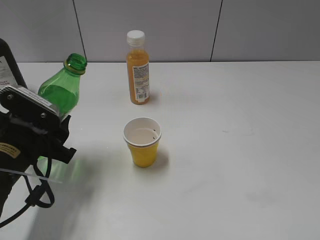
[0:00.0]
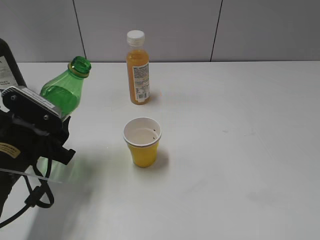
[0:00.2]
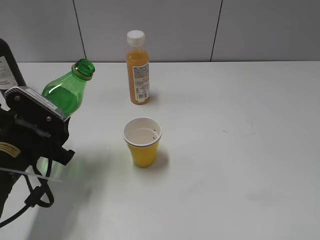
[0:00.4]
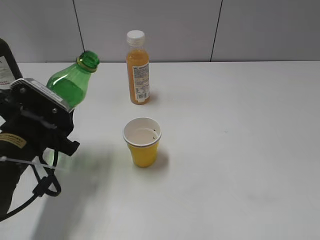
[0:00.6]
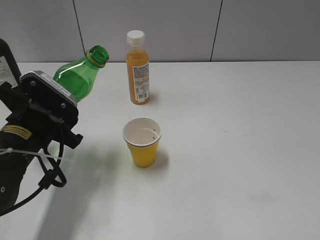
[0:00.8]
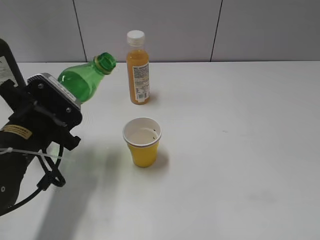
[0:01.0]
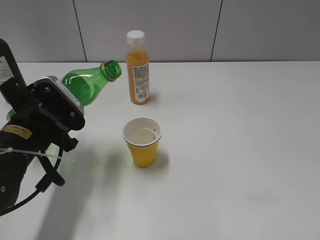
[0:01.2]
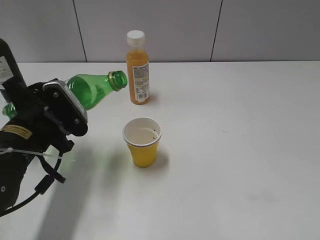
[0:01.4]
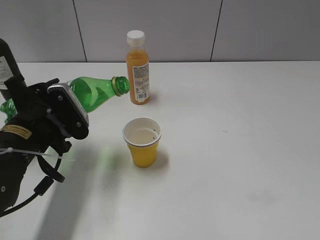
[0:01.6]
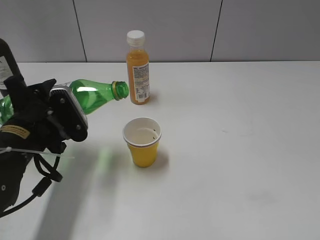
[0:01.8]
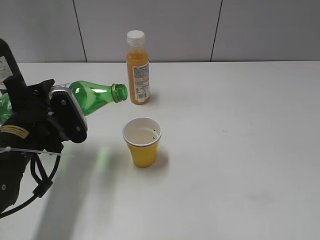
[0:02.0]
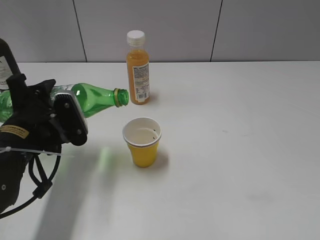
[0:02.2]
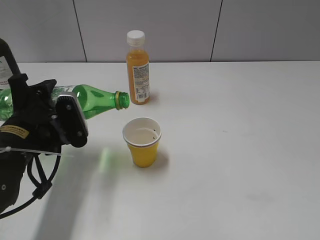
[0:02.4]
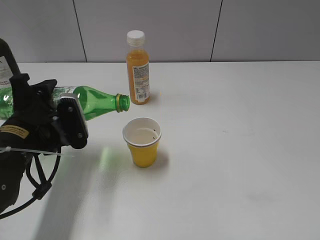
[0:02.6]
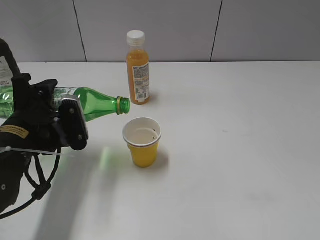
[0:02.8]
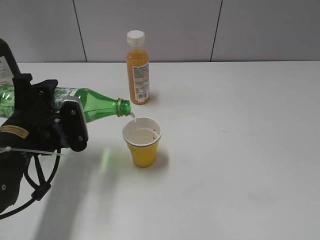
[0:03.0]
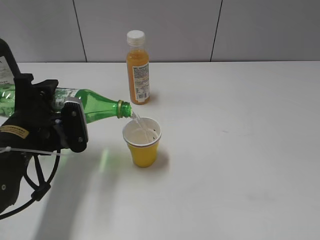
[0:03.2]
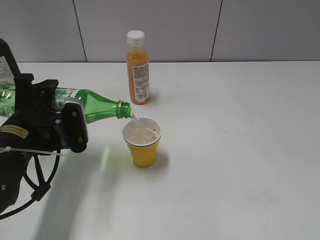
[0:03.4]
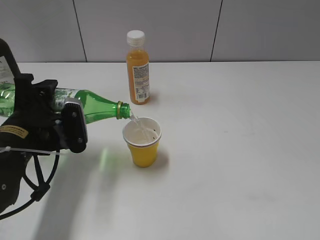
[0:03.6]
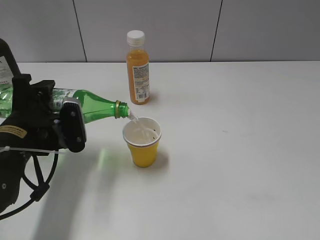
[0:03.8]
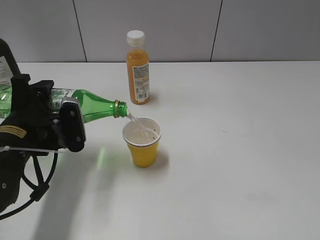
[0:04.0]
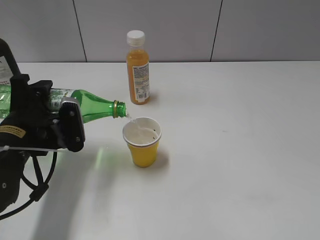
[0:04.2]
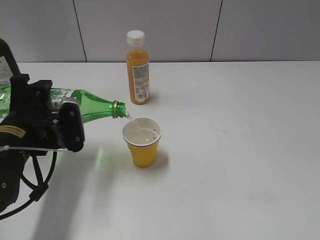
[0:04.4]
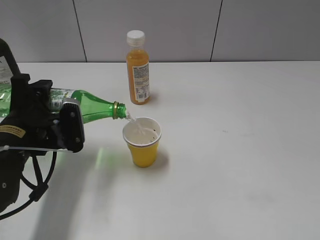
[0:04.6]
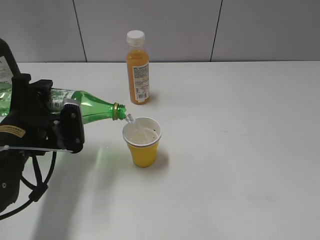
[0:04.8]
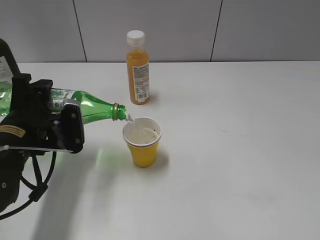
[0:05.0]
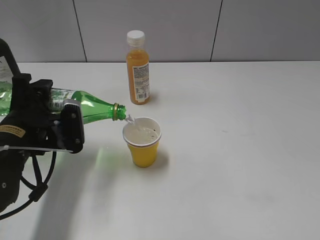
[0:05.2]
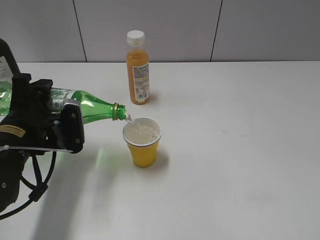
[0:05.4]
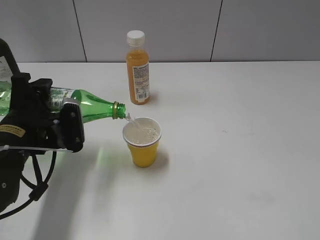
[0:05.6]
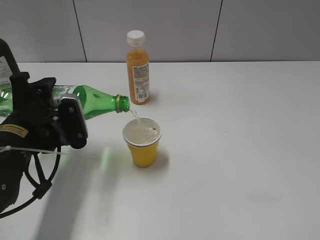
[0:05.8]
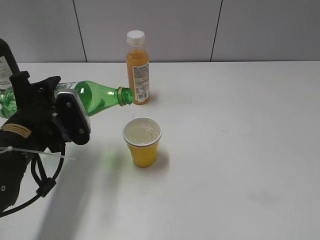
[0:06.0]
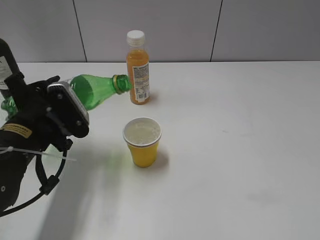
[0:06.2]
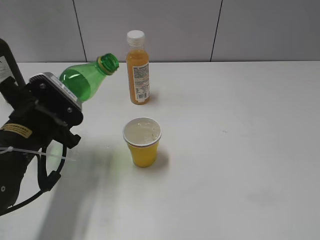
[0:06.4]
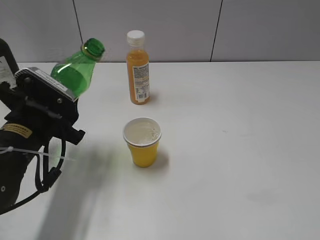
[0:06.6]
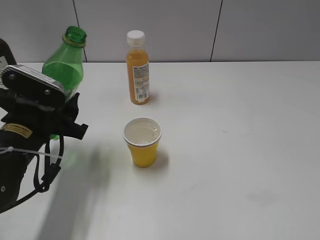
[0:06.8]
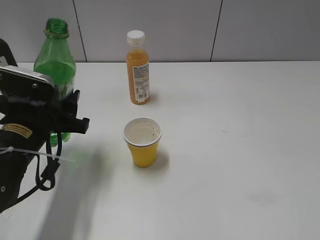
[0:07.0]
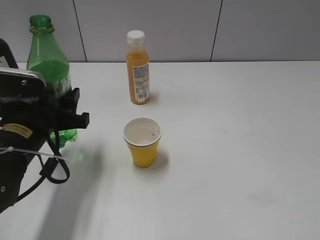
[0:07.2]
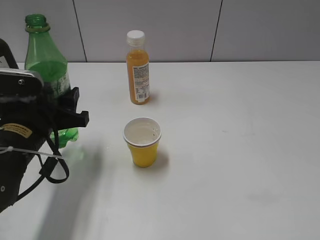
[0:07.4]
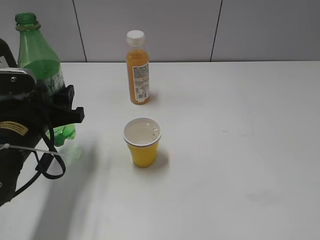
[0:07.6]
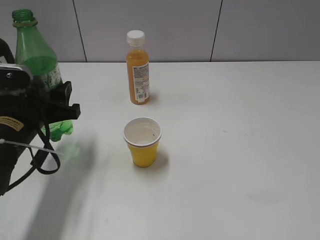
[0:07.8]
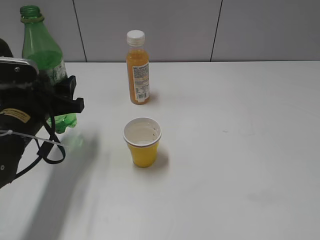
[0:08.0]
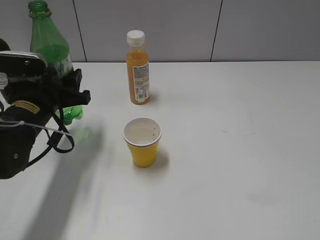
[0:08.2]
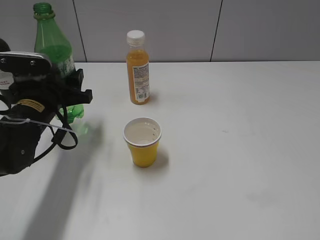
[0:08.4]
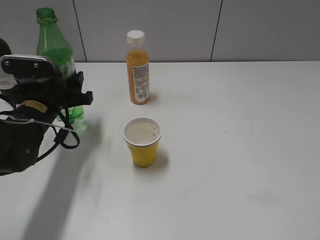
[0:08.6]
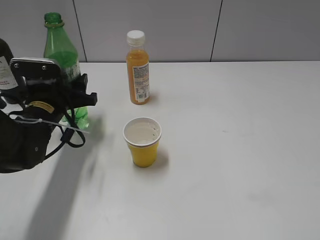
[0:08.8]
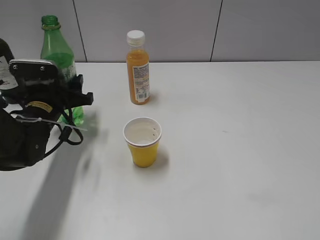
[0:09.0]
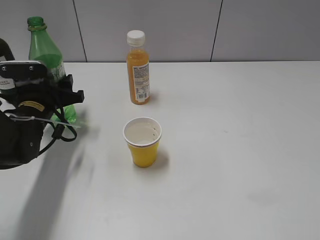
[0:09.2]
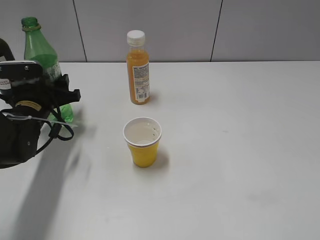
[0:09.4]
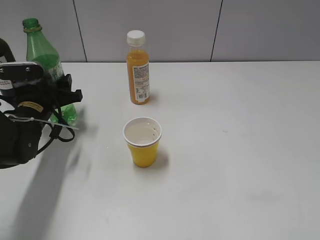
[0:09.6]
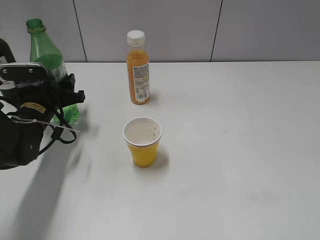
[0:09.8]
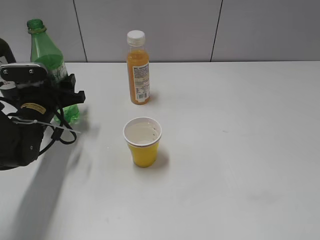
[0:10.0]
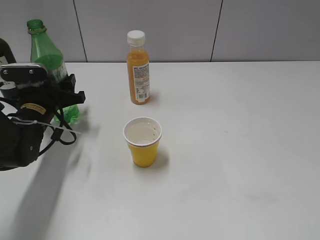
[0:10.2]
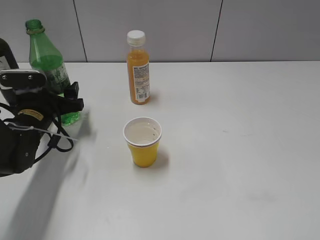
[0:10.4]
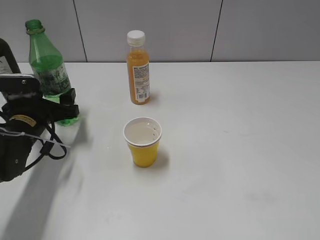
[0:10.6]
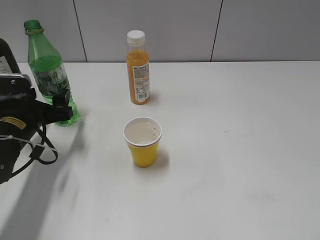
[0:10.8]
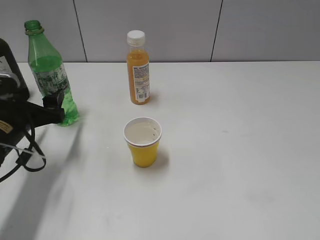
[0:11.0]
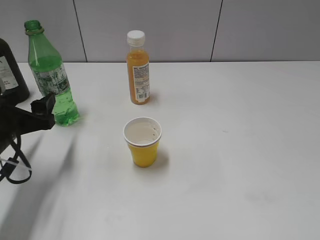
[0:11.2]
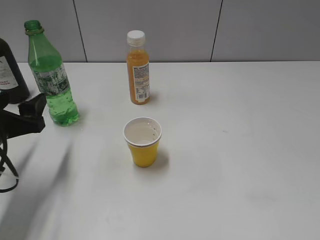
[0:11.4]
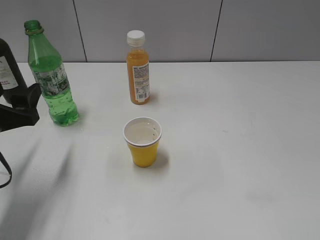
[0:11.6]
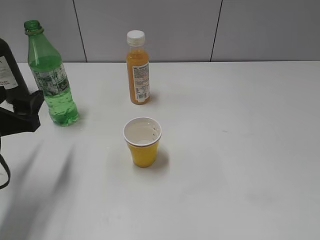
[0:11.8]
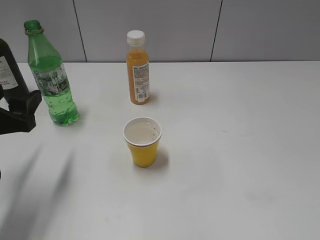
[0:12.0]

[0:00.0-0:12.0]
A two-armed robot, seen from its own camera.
Step, 0:00.0 to 0:06.0: Pour the sprite from bottle to cup with left gripper.
Step, 0:06.2 to 0:10.8: Place the sprite bottle on the table with left gripper.
0:01.6 to 0:03.0: The grippers move only a little.
0:03.0 to 0:04.4: The two grippers keep their place.
0:04.4 to 0:06.0: The grippers stay close to where they were, moving slightly.
0:07.6 to 0:09.0: The left gripper travels forward by about 10 cm.
0:09.0 to 0:10.4: The left gripper opens.
0:10.4 to 0:12.0: The left gripper goes about 15 cm backward and upward.

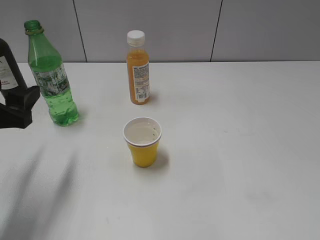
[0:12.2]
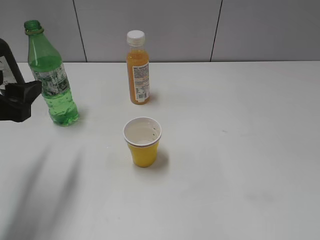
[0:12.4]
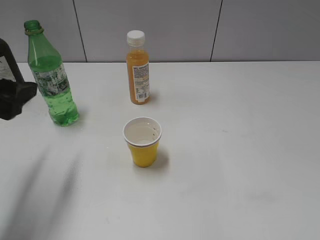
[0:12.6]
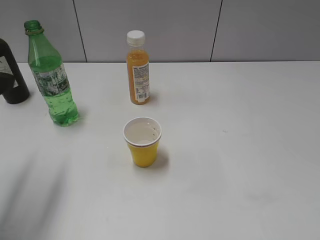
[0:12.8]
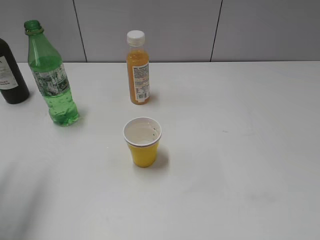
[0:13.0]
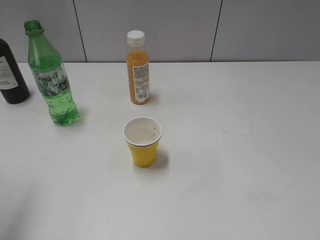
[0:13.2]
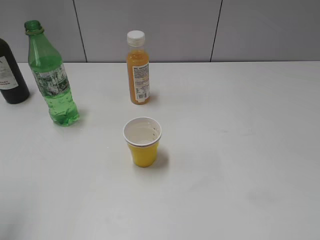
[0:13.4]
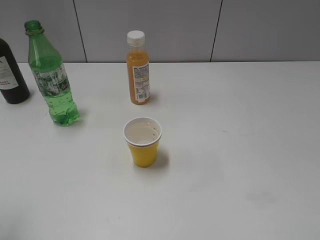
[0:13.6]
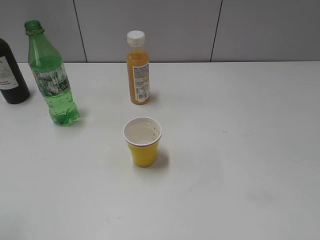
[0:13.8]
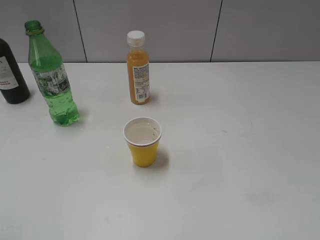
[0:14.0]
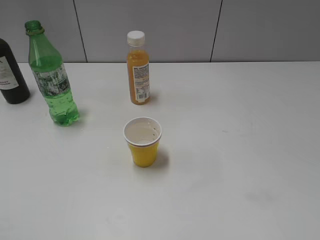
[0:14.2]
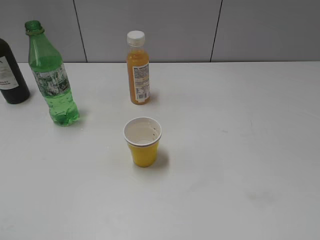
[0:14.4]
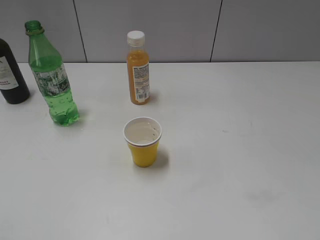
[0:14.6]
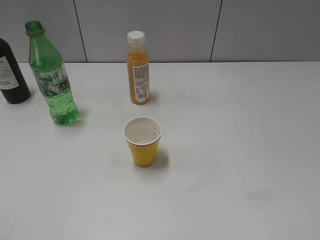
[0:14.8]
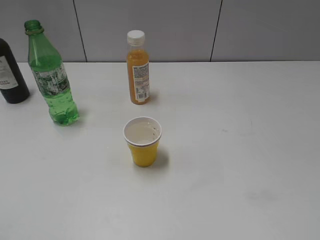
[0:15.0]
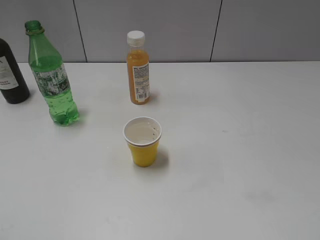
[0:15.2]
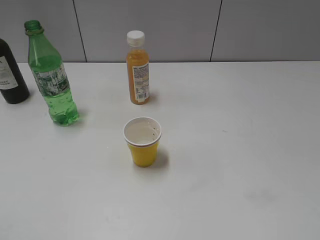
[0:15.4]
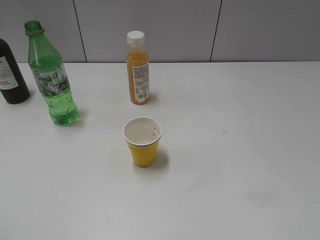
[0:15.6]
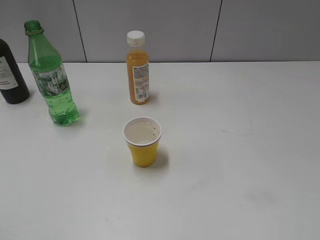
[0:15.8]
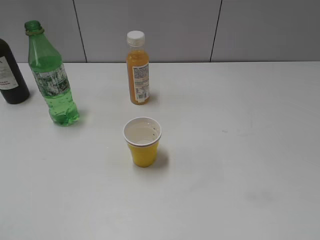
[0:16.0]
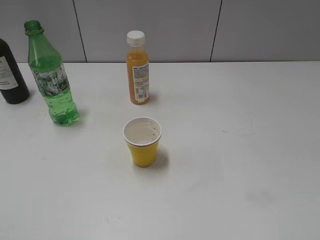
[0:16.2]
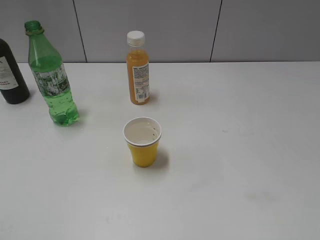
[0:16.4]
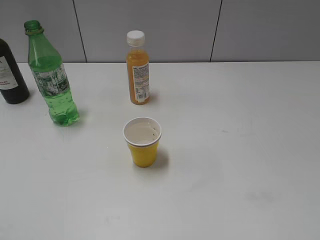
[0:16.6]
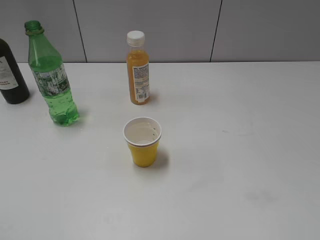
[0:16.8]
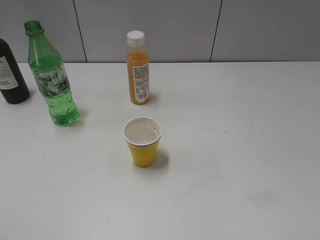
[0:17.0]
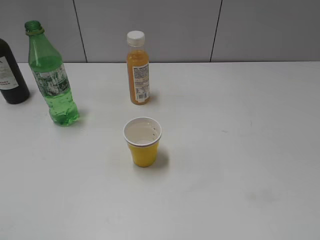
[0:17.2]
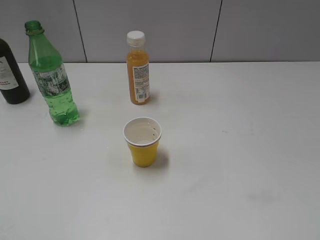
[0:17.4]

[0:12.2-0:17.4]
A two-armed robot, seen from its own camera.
0:12.2 to 0:14.0: The left gripper shifts some 20 cm upward and backward.
0:15.6 to 0:17.4: Both grippers stay about where they are.

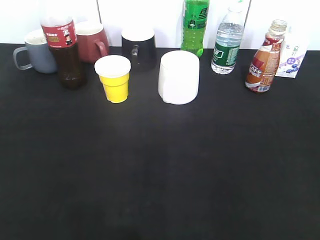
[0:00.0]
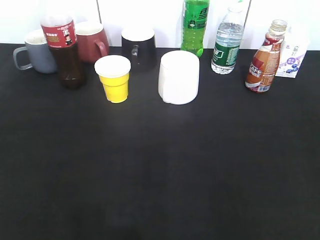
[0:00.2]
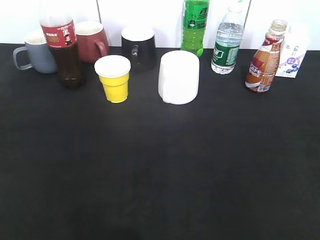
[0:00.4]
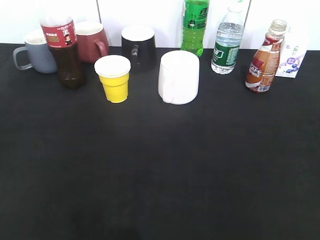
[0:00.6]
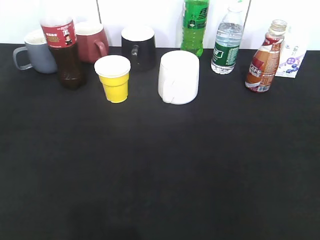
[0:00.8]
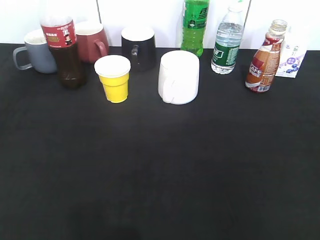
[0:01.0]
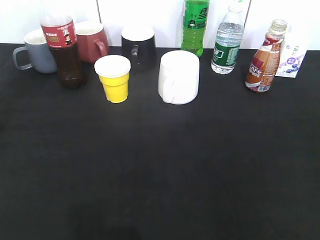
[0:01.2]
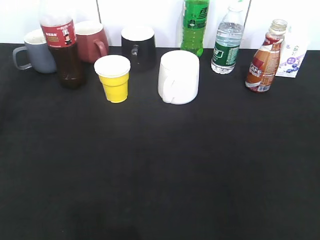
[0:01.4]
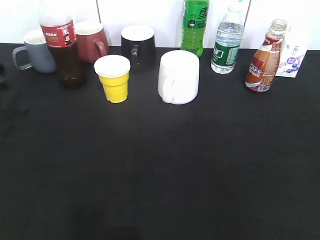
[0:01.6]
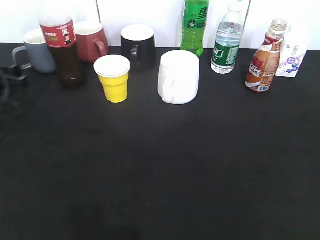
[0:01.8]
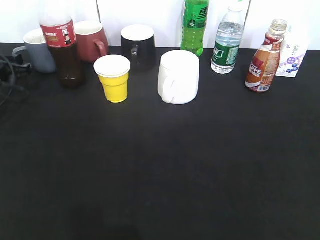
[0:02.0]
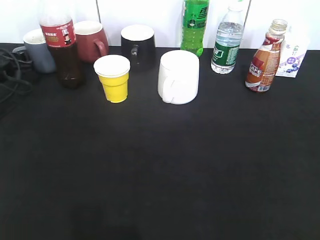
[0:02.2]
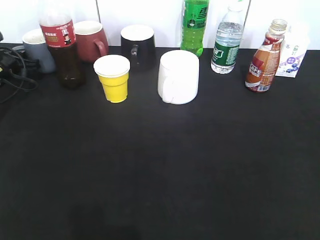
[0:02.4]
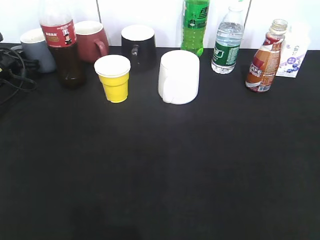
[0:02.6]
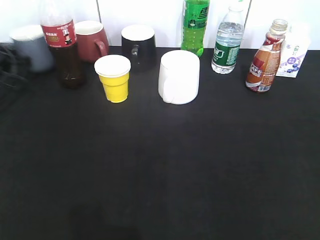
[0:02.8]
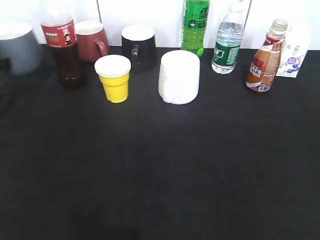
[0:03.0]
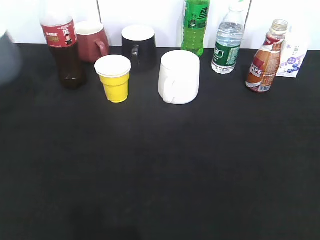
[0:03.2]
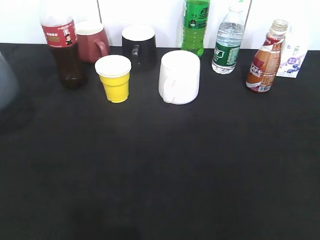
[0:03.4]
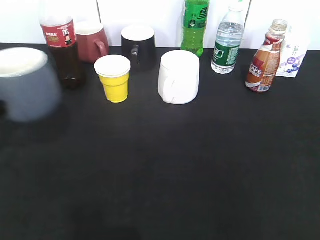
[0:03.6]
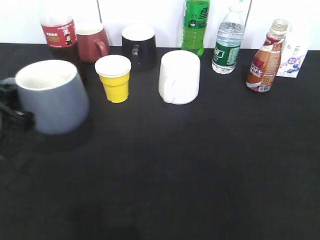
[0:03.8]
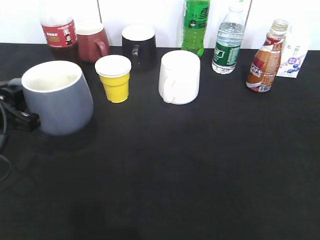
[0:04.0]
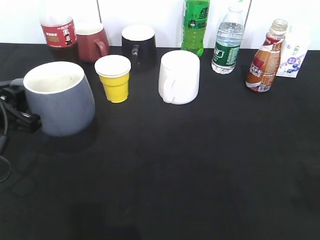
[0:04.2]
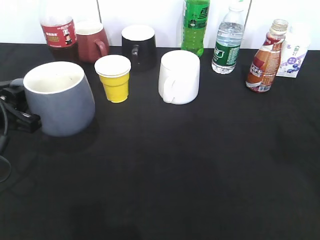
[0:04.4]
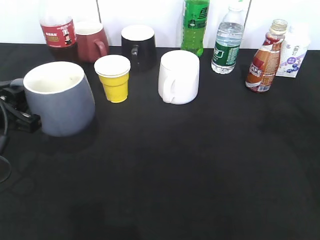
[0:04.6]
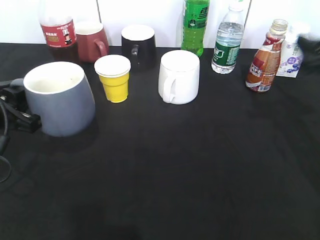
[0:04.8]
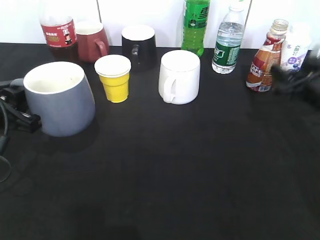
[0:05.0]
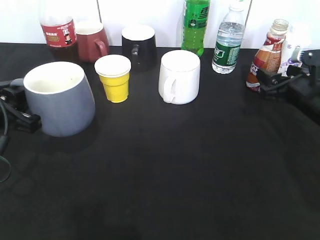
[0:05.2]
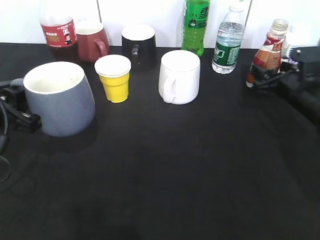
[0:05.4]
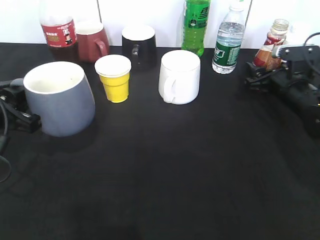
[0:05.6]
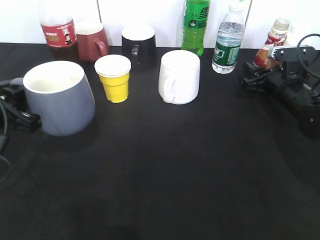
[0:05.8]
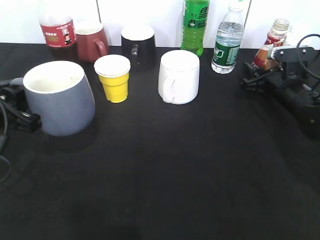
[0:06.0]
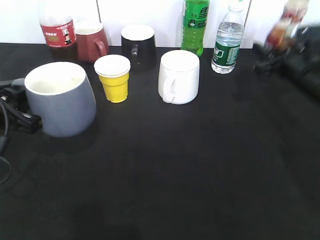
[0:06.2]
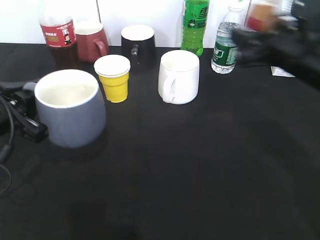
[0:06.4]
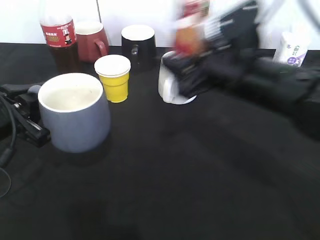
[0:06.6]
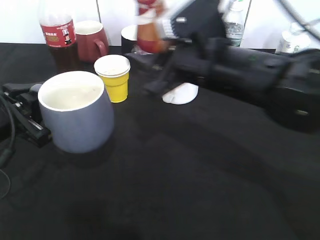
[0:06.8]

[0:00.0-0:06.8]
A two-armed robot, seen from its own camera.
Step, 0:00.0 to 0:02.6: Grasp the grey cup with left gripper.
Step, 0:02.8 to 0:04.4: Lift the grey cup with left gripper.
Step, 0:04.6 to 0:05.6: Grasp the bottle with coffee with right gripper.
0:00.0 to 0:01.4: The left gripper goes about 25 cm forward.
0:01.4 to 0:02.8: The left gripper moves forward and downward, about 20 cm, and closes.
0:02.8 to 0:04.0: The left gripper heads backward and to the right, covering approximately 25 cm.
0:04.0 to 0:05.4: The right gripper goes approximately 40 cm forward and downward.
0:05.4 to 0:06.8: The right gripper shifts approximately 25 cm to the left, upward and backward.
